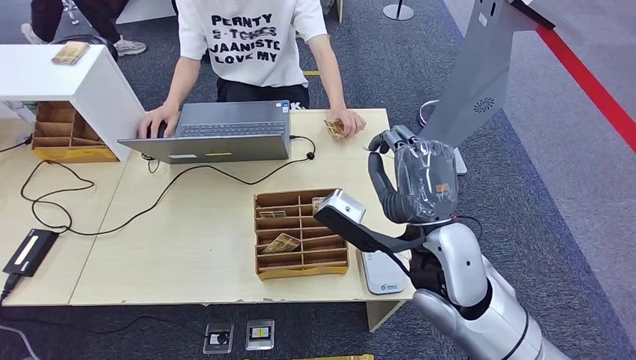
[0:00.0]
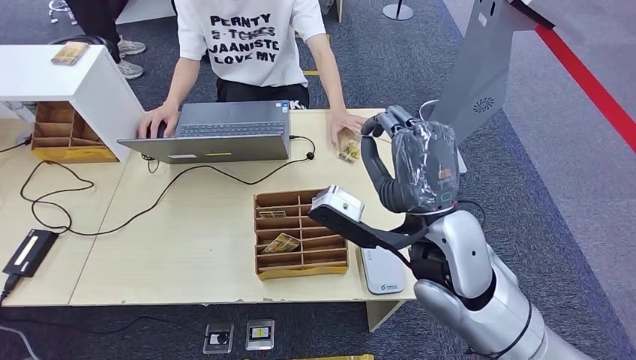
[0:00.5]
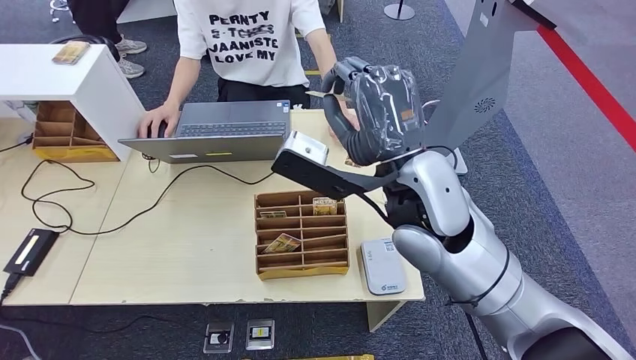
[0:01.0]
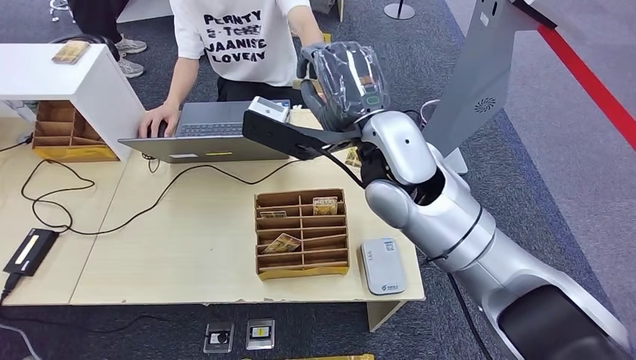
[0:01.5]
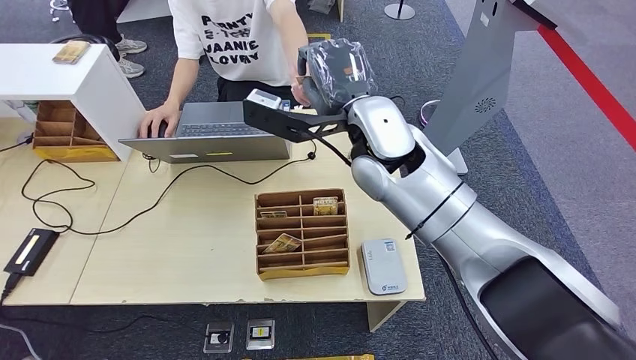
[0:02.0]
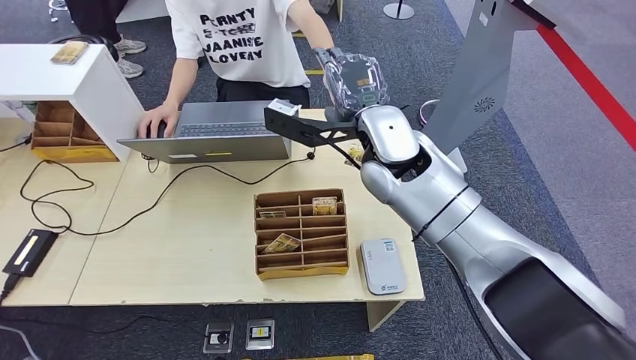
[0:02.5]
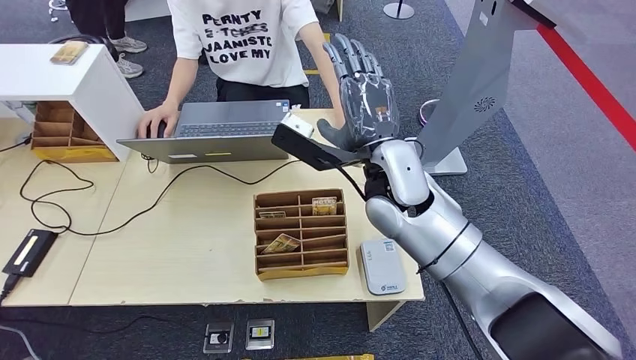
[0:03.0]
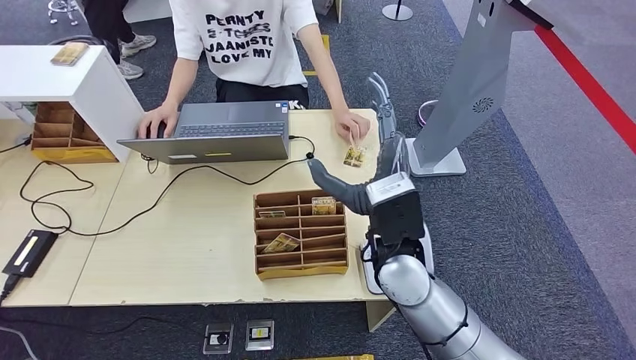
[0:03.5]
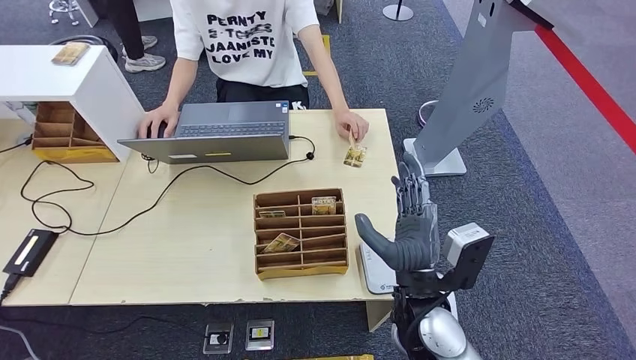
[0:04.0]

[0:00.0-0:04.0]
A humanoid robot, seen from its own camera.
Step, 0:00.5 to 0:04.0: Hand the room key to the person.
